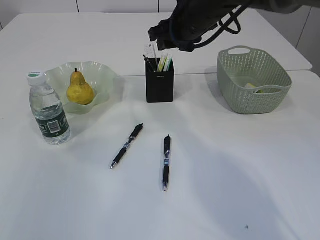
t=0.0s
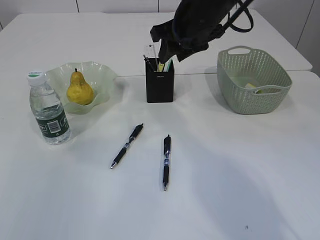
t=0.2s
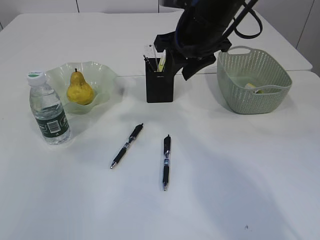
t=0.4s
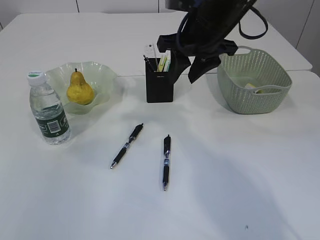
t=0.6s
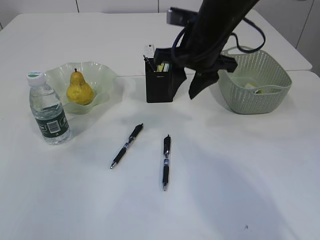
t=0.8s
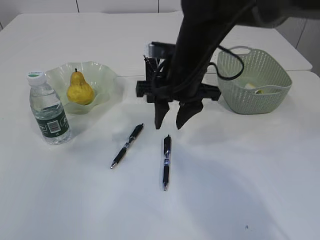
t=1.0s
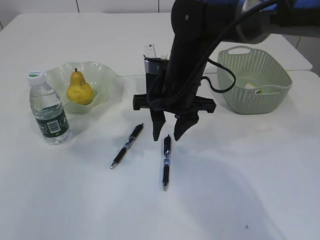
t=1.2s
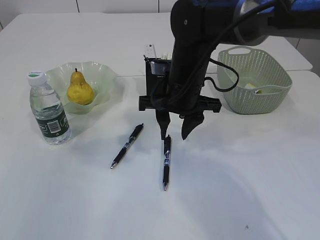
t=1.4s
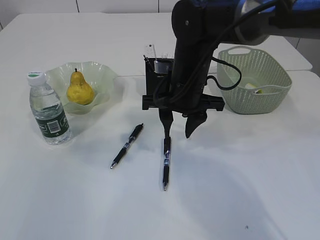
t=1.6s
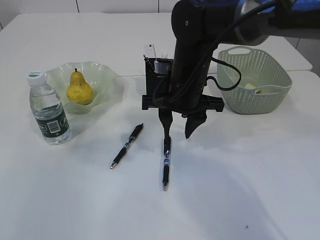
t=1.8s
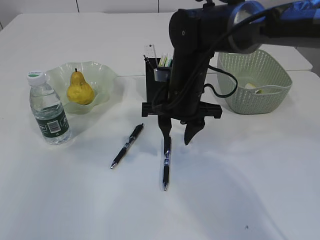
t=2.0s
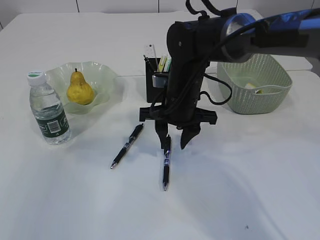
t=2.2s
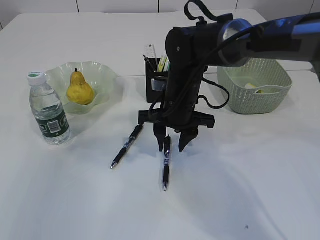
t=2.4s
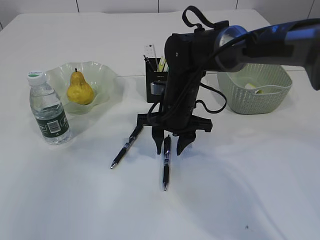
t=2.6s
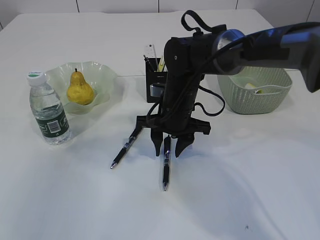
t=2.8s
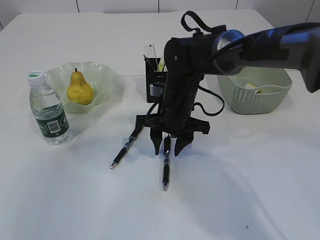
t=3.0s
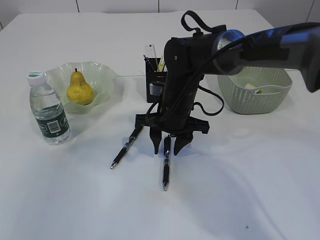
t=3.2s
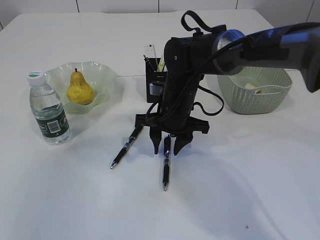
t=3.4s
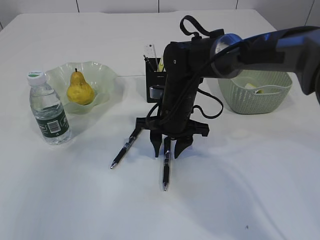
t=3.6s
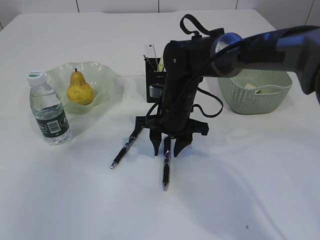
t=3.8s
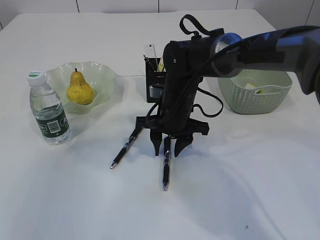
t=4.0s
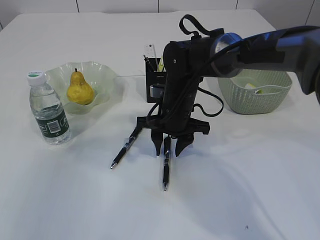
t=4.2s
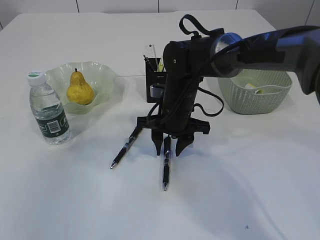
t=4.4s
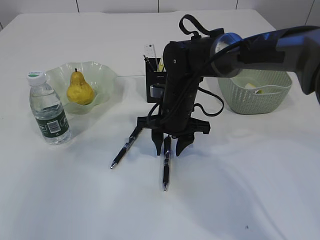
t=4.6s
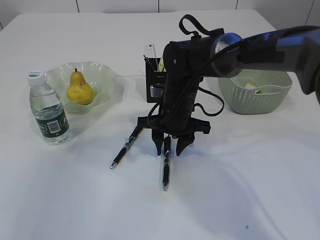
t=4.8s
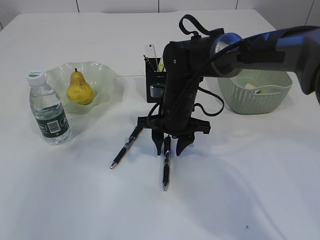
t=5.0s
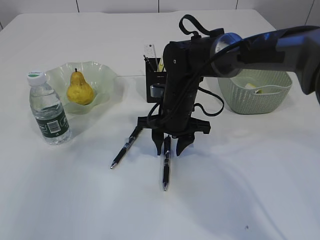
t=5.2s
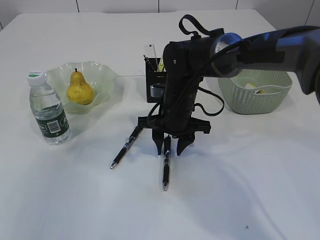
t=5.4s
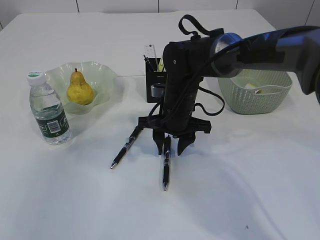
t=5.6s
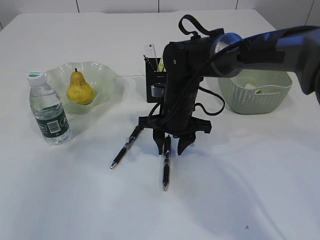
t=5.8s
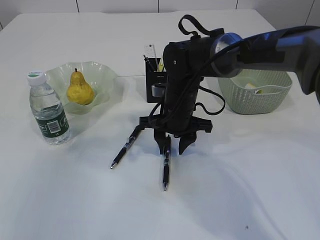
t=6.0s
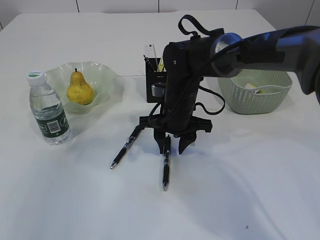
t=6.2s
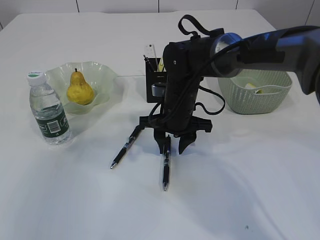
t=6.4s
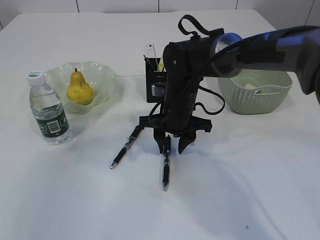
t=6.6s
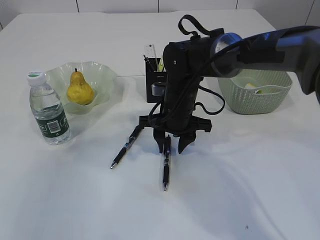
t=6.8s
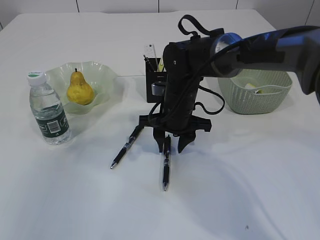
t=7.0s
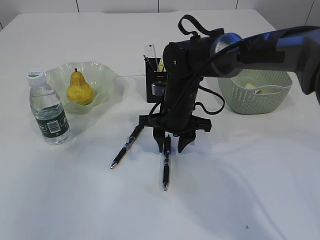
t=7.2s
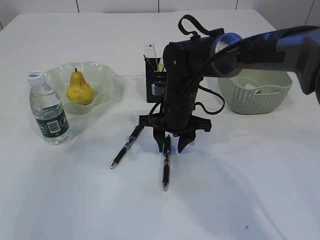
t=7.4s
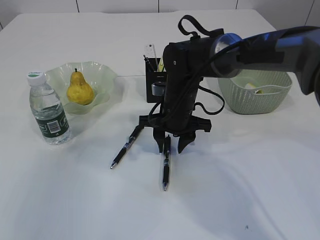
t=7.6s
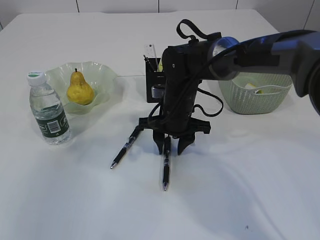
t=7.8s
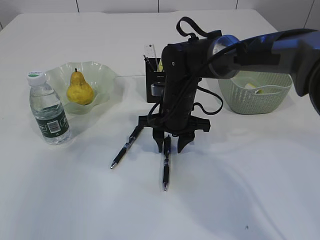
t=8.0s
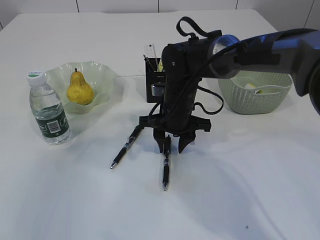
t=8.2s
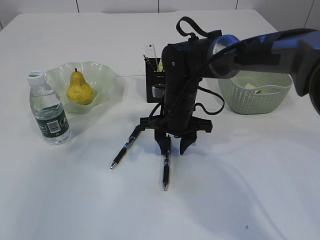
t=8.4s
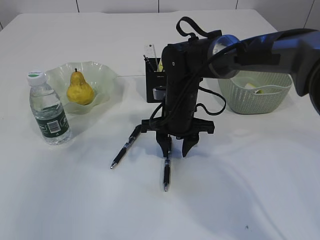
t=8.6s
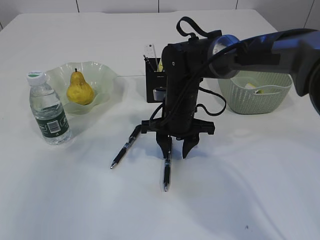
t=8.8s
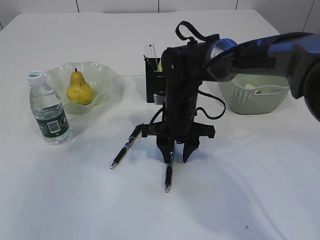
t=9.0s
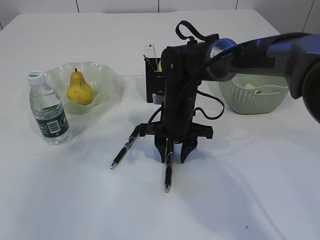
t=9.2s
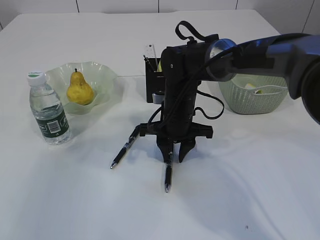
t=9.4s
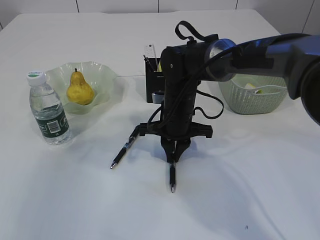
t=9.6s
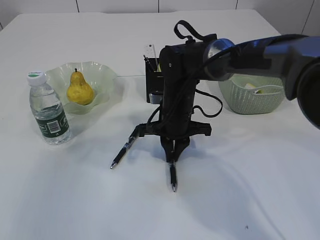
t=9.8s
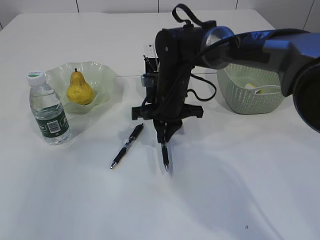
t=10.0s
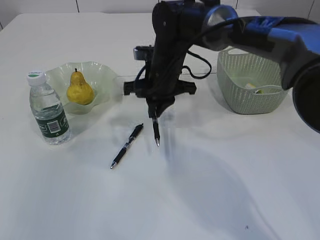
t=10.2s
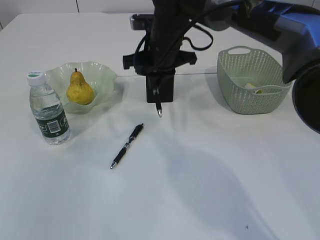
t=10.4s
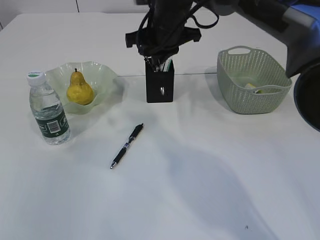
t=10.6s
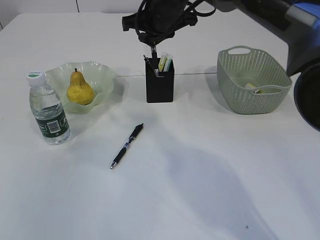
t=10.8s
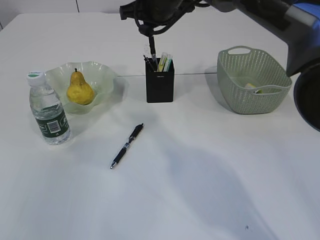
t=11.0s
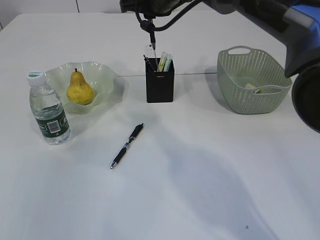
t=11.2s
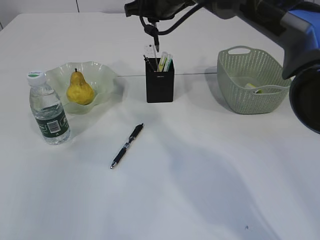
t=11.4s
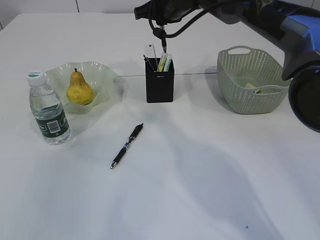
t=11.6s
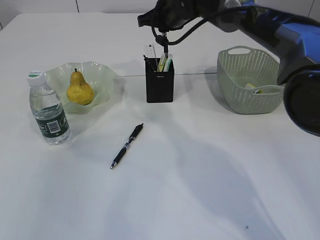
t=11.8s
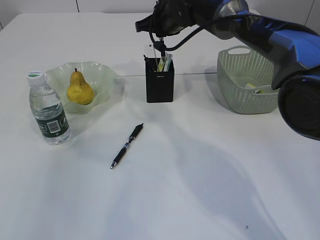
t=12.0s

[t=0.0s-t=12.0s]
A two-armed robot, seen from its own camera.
Step, t=0.2s to t=10.2s: Pick up the pen with right arm.
t=0.0s to t=1.6s: The right gripper moves backward and downward, about 10 cm.
t=1.6s to t=3.0s: The right gripper shifts some 5 cm downward.
t=3.0s to t=7.6s: Both grippers stay put.
t=7.6s to t=9.0s: There are only small adjustments of the grippers.
t=9.0s to t=10.4s: The right gripper heads upward and forward, covering about 10 cm, and closes.
t=10.4s to t=12.0s: The right gripper shifts approximately 10 cm forward.

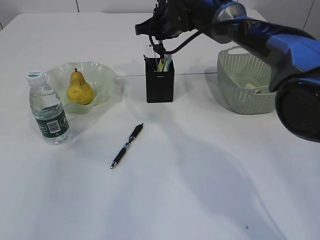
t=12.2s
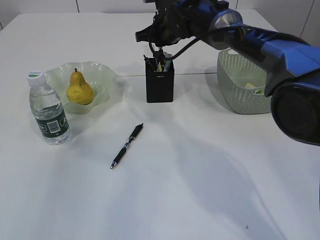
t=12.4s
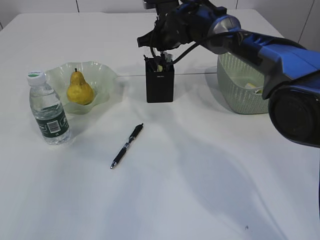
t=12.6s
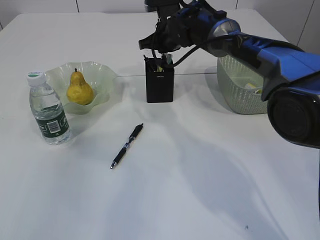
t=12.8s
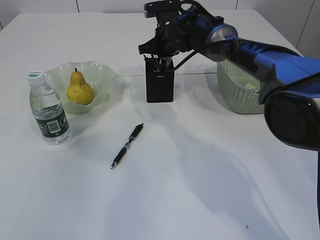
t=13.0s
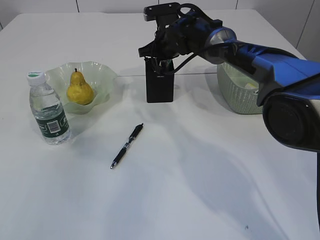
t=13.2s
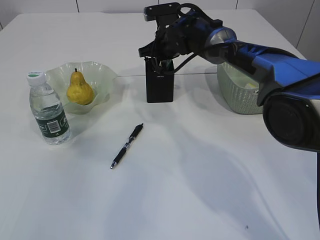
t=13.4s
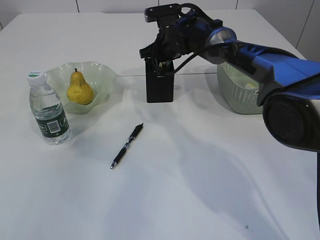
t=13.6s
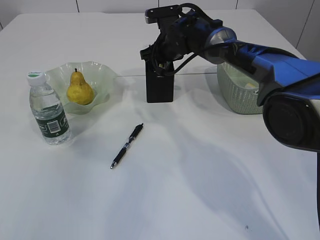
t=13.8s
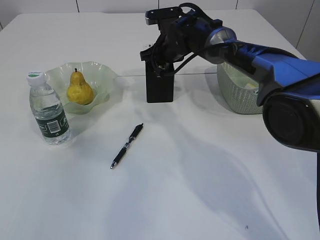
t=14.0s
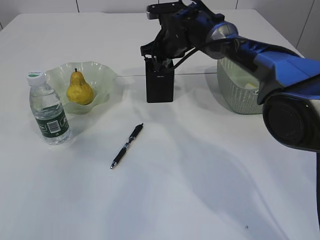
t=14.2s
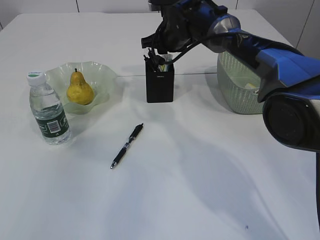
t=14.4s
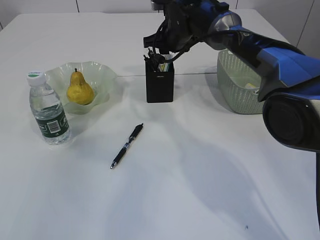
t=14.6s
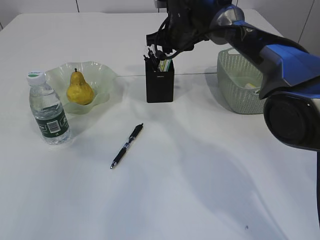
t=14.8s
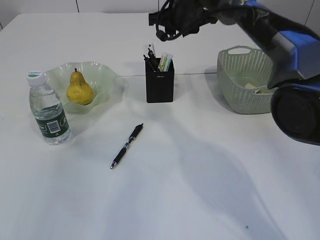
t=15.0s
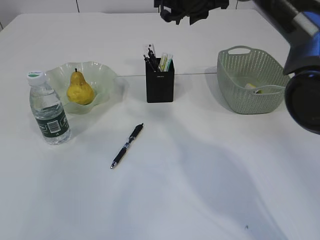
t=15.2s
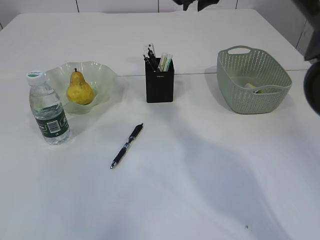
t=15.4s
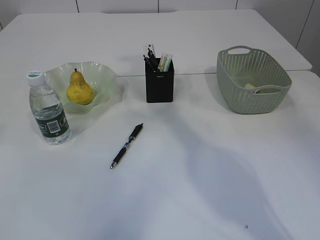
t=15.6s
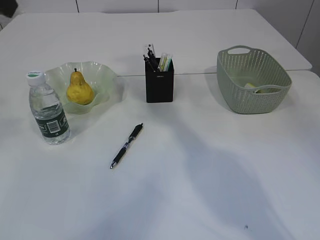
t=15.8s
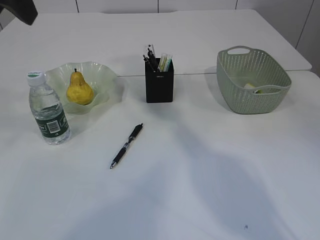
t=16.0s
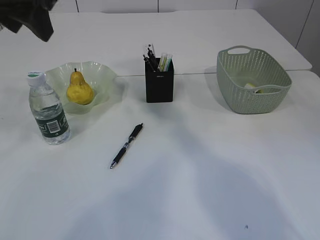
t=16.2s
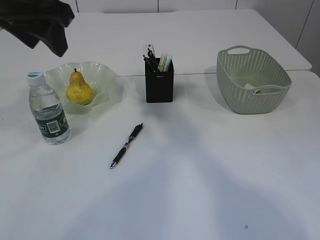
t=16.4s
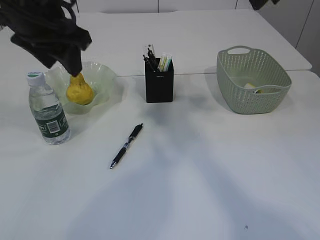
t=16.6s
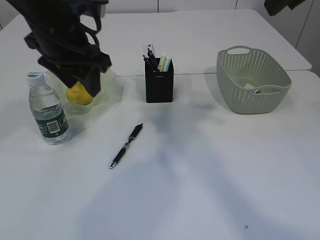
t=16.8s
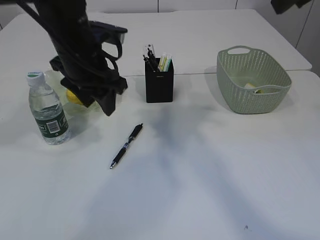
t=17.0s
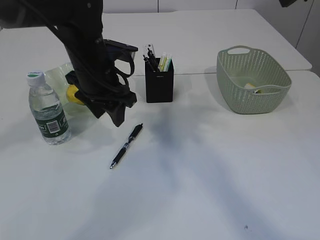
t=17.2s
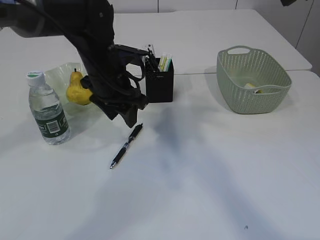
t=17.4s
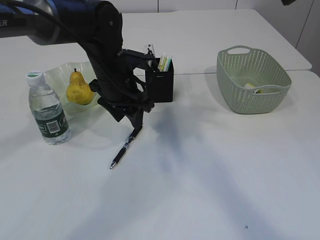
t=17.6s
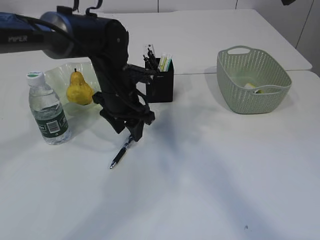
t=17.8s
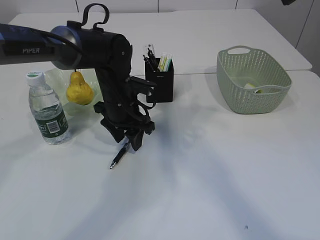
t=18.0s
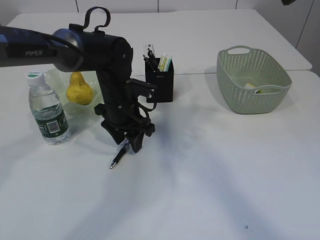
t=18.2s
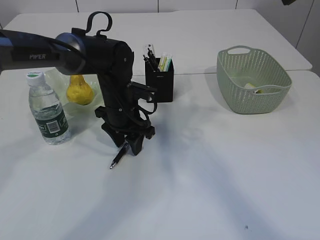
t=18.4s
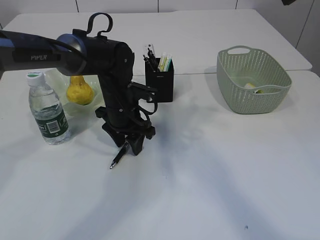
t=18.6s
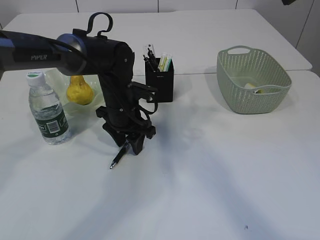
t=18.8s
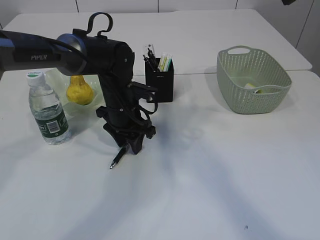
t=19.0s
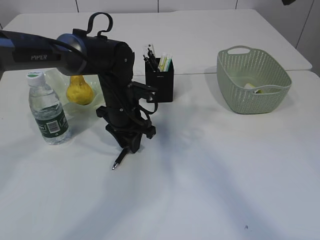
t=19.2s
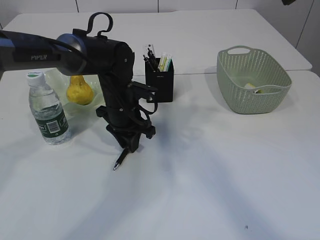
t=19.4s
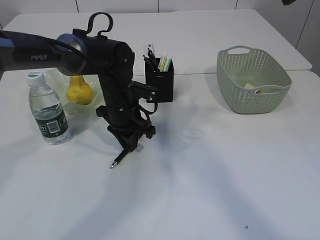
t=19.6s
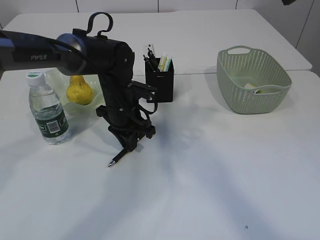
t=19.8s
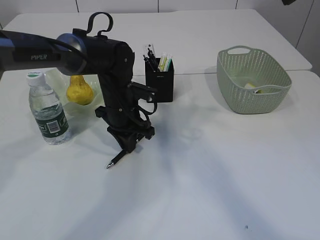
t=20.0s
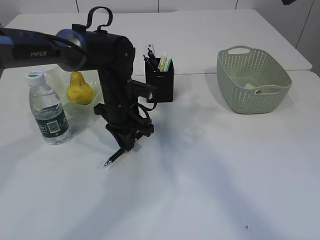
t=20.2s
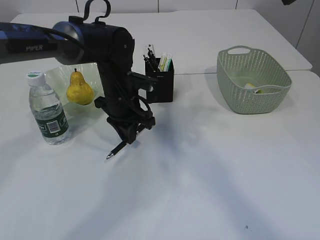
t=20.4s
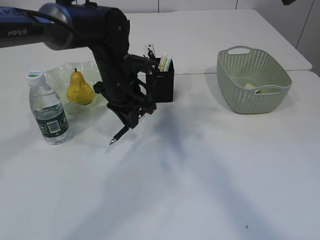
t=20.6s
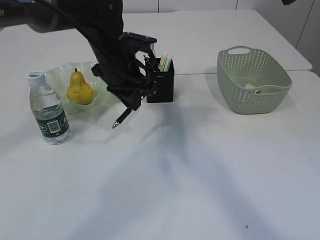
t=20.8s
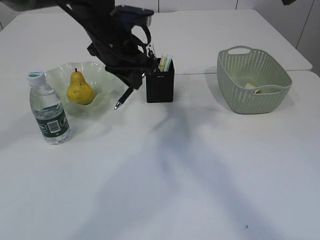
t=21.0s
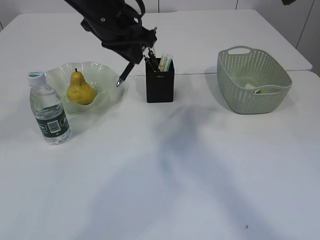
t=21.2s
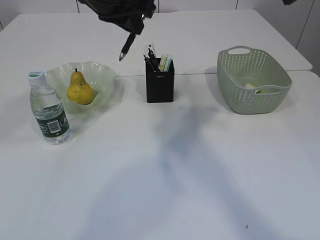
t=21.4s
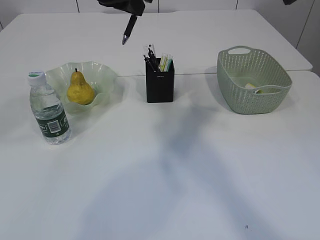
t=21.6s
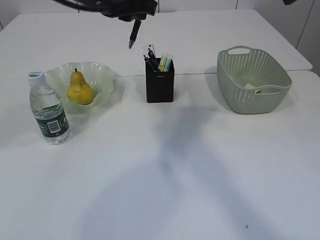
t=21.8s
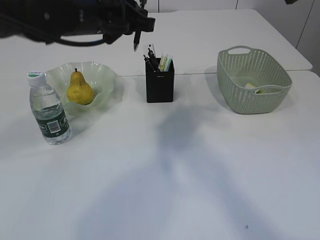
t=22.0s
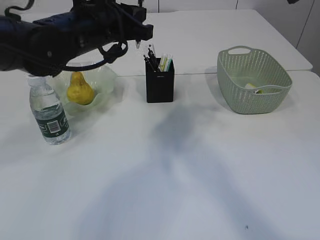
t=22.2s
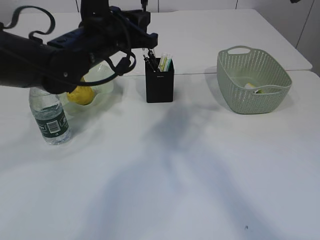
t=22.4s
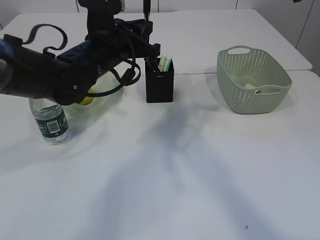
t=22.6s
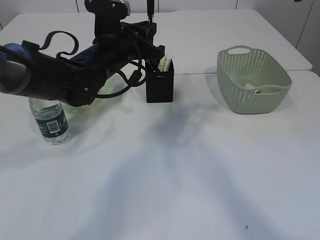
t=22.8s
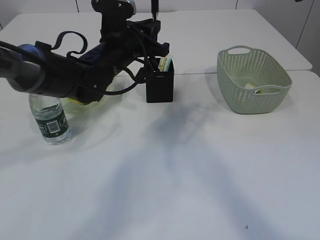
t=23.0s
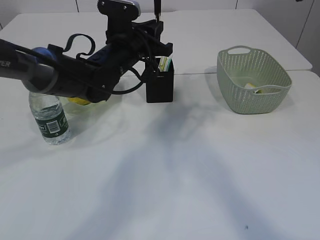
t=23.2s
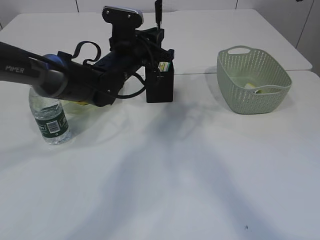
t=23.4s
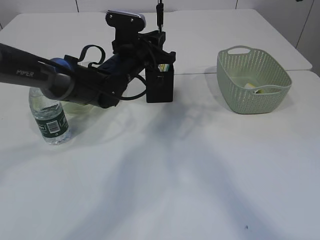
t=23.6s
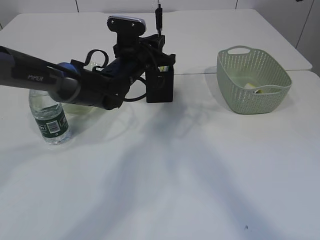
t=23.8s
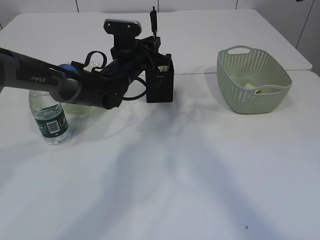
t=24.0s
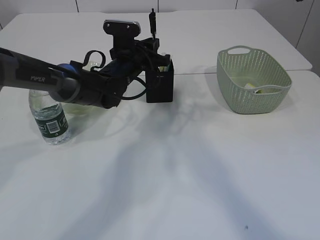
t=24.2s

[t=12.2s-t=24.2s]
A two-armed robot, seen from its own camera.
Step, t=12.2s to t=15.0s: Place the pen into the pen holder.
Step, t=15.2s to t=20.8s: Pick up the pen with right arm.
t=12.2s to t=13.8s: The right gripper heads downward, covering about 5 cm.
t=13.8s to t=15.2s: The right gripper moves upward, about 10 cm.
t=15.2s to t=16.6s: The left gripper moves forward, to the right and downward, approximately 20 cm. Meanwhile the right gripper goes approximately 20 cm backward, upward and to the right.
t=16.6s to t=18.2s: The right gripper heads backward, covering approximately 5 cm; the left gripper heads downward, covering roughly 20 cm.
t=18.2s to t=19.8s: The left gripper closes its fingers.
t=19.8s to t=21.2s: The left gripper shifts some 15 cm upward.
t=21.2s to t=22.6s: The left gripper is displaced downward by roughly 5 cm.
t=22.6s to t=24.2s: The left gripper goes approximately 10 cm forward and downward.
